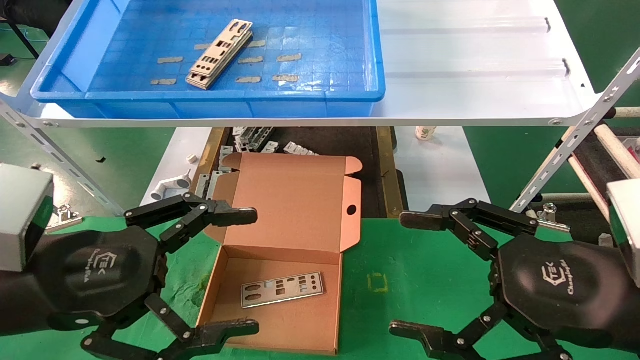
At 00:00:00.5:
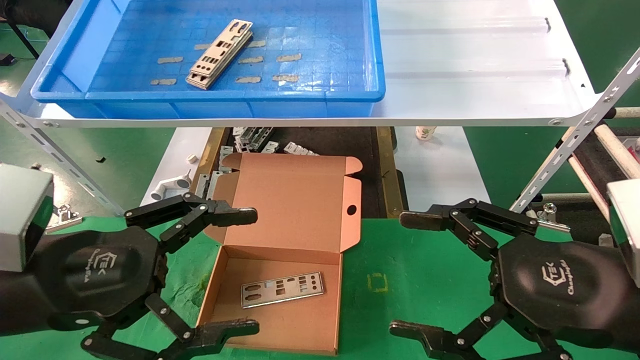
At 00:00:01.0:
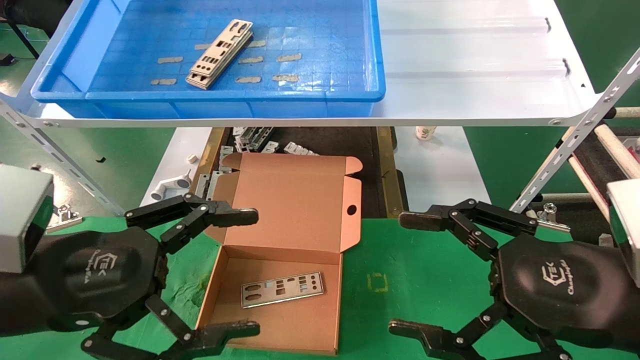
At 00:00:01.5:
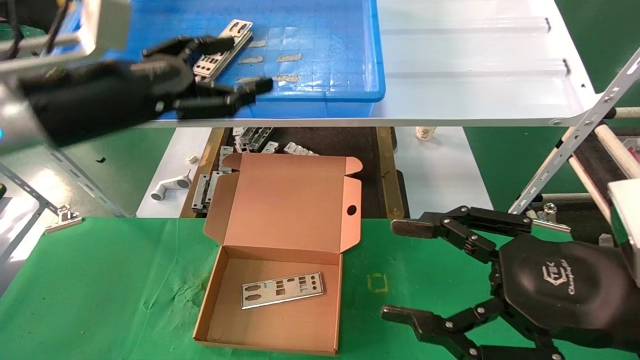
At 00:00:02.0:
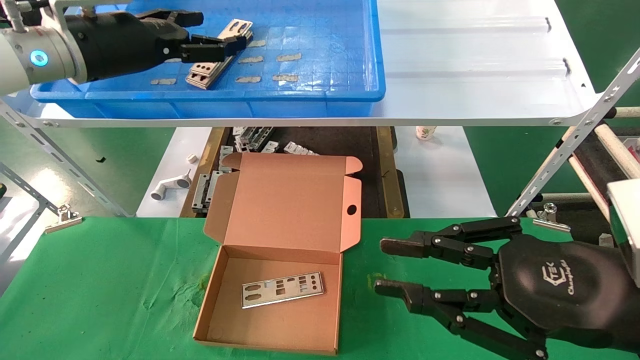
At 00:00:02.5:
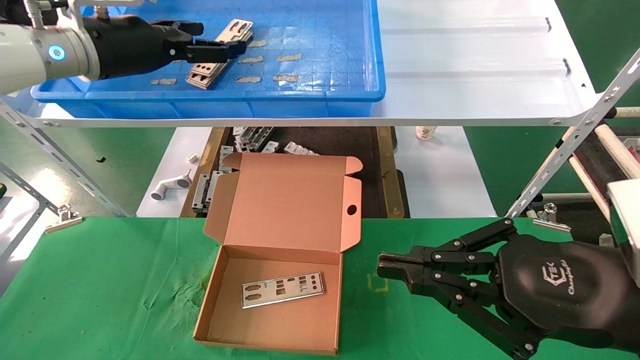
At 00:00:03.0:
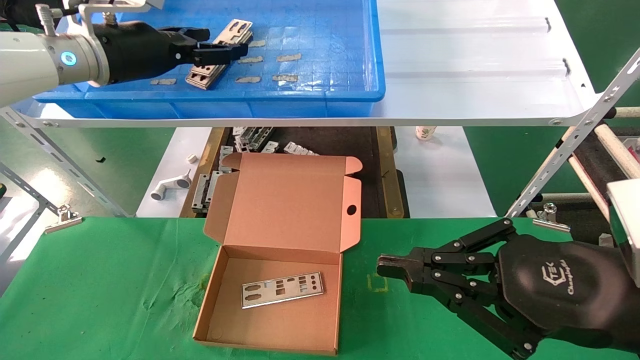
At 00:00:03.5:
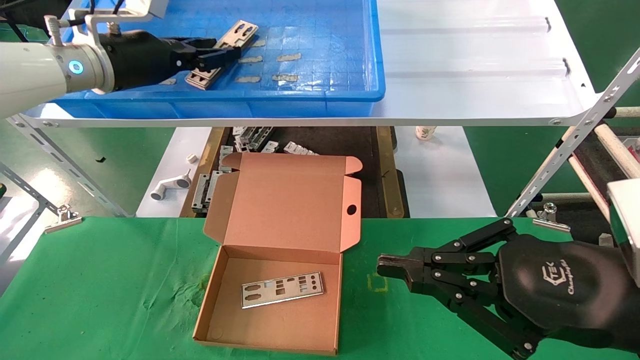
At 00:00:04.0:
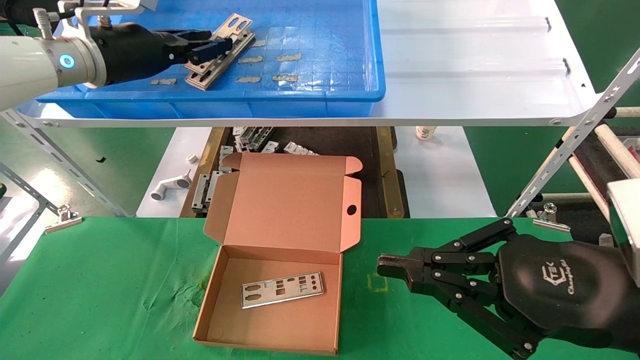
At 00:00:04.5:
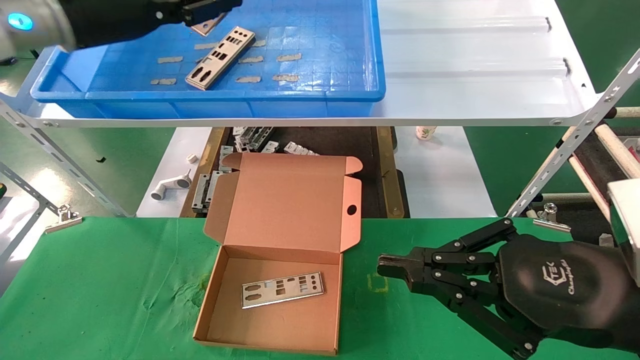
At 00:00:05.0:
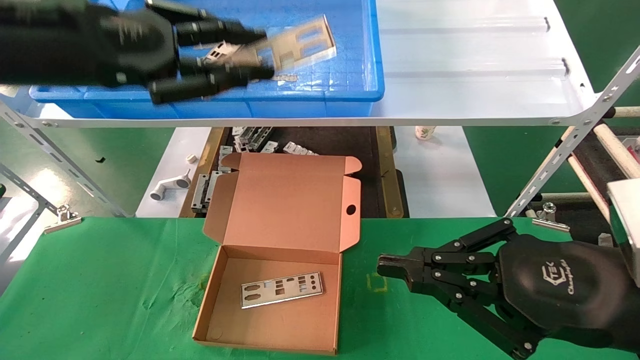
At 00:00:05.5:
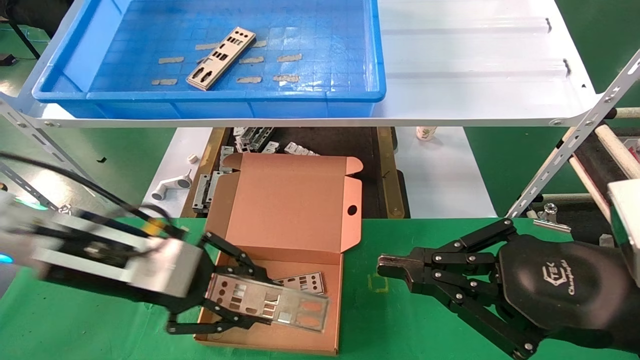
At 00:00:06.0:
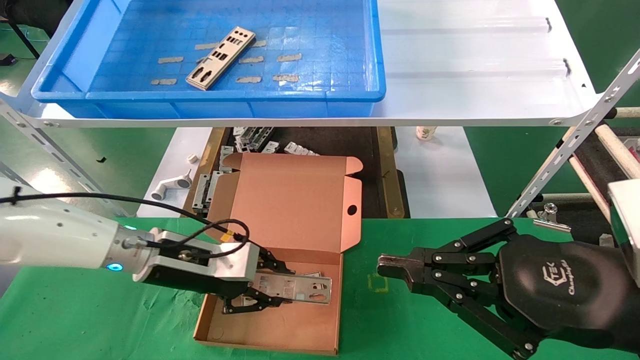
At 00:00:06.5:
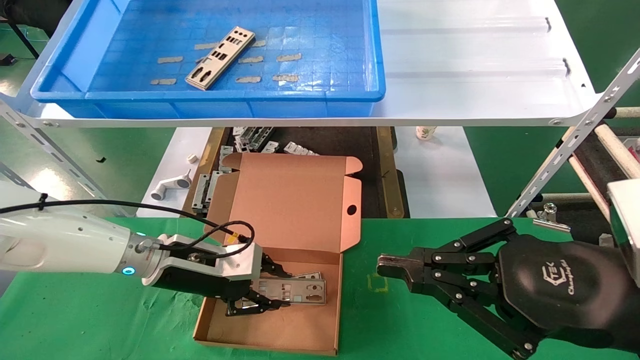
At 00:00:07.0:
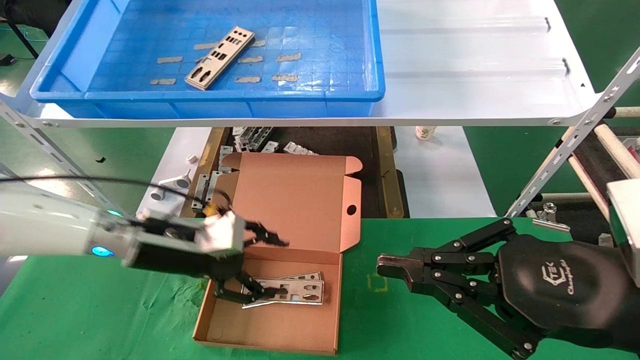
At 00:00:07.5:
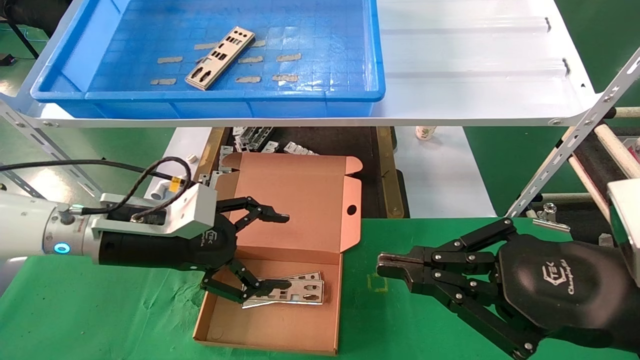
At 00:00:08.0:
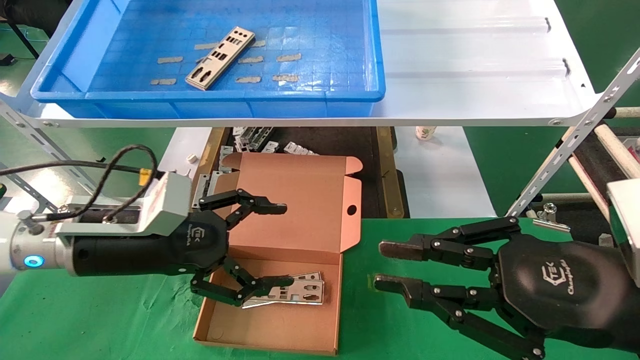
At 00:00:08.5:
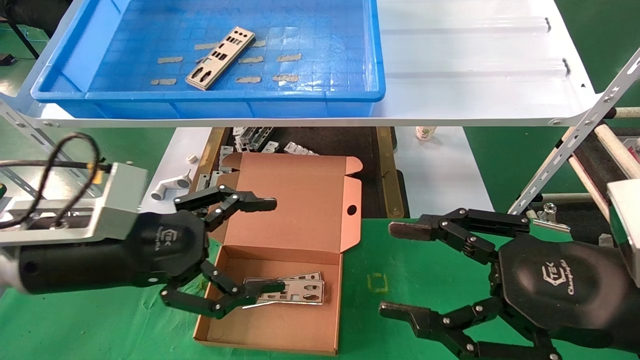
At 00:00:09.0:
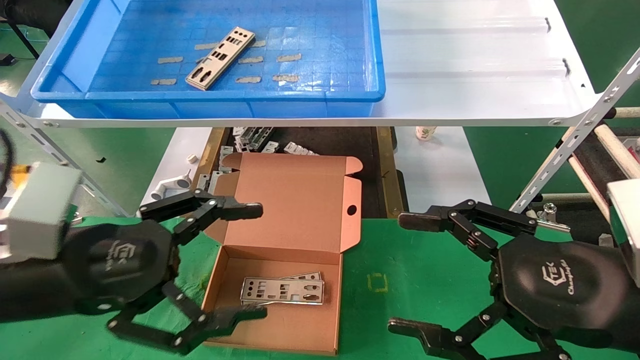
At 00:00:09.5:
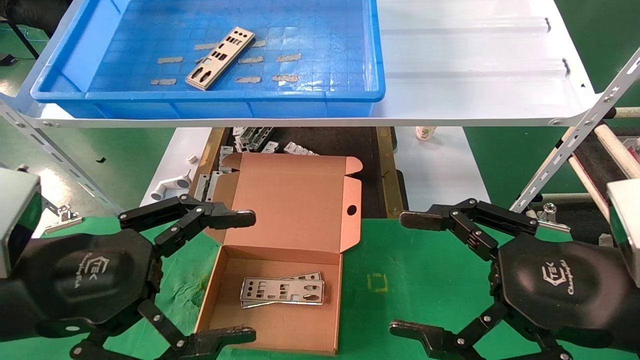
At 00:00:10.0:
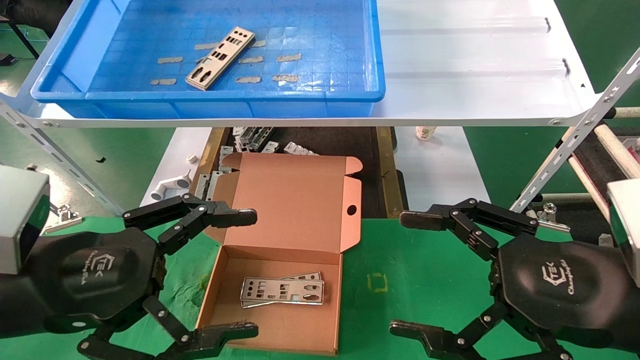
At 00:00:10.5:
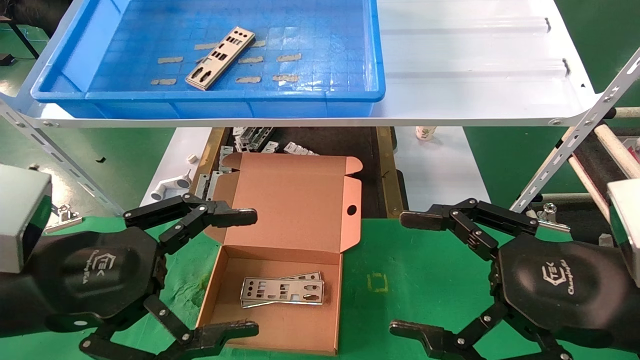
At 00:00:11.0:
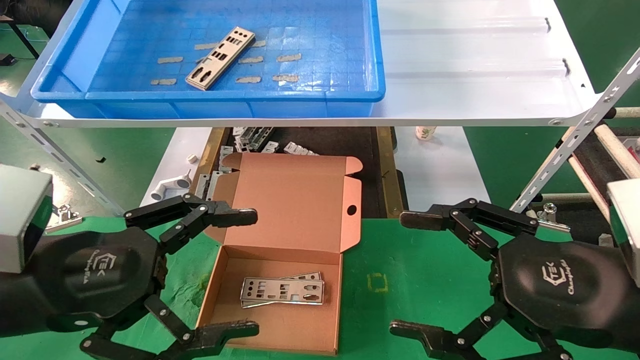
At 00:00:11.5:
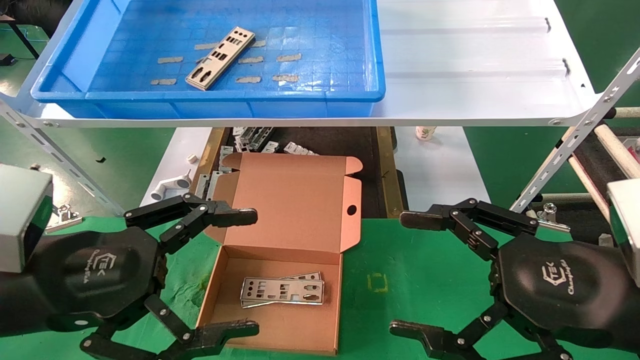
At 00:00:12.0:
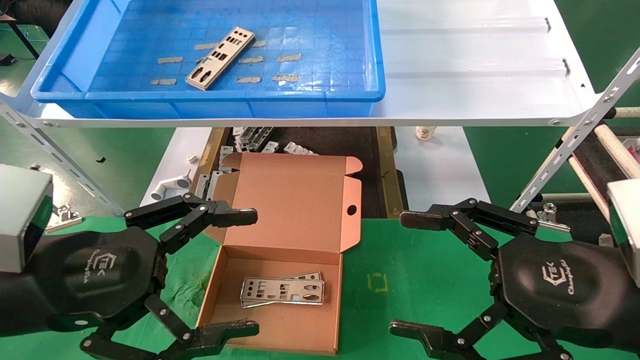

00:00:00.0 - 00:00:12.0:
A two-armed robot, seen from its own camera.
Task of the whole recording: pick up the parts on the tray and put them in the cardboard box.
Step, 00:00:01.5 - 00:00:04.0: Pick up the IO bracket from the container box.
Step, 00:00:04.5 - 00:00:06.5: Place the IO bracket into the ingredient slot.
00:00:00.0 - 00:00:02.0: The left gripper travels forward and upward by about 25 cm; the right gripper closes its fingers.
00:00:02.0 - 00:00:04.0: The right gripper closes, while the left gripper closes.
00:00:04.0 - 00:00:06.0: The left gripper shifts approximately 25 cm downward.
00:00:06.0 - 00:00:08.0: The left gripper shifts approximately 5 cm backward, and opens up.
00:00:08.0 - 00:00:10.0: The left gripper shifts some 10 cm backward, while the right gripper opens its fingers.
00:00:10.0 - 00:00:12.0: Neither gripper changes place.

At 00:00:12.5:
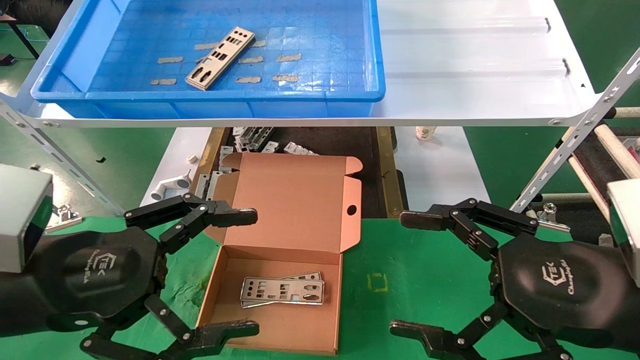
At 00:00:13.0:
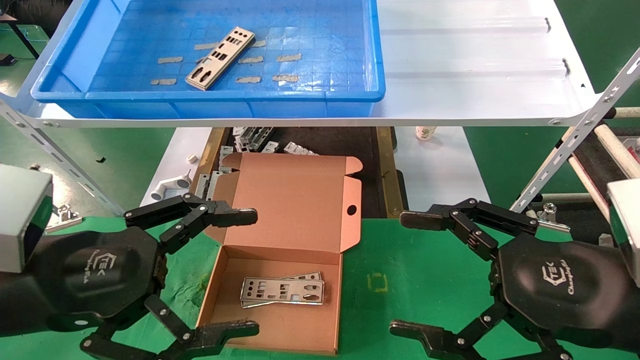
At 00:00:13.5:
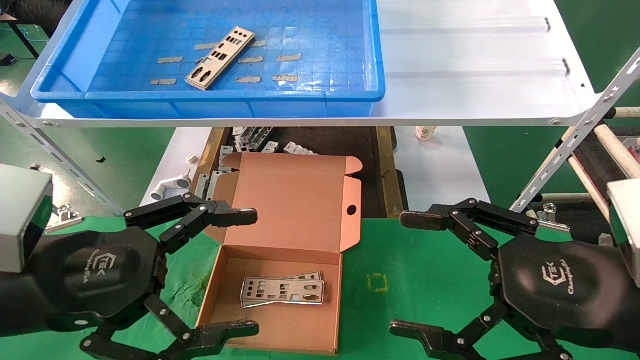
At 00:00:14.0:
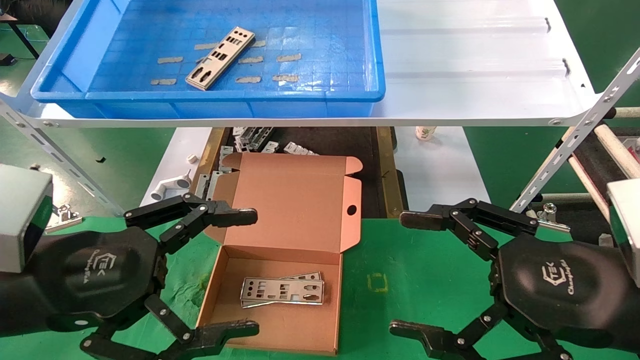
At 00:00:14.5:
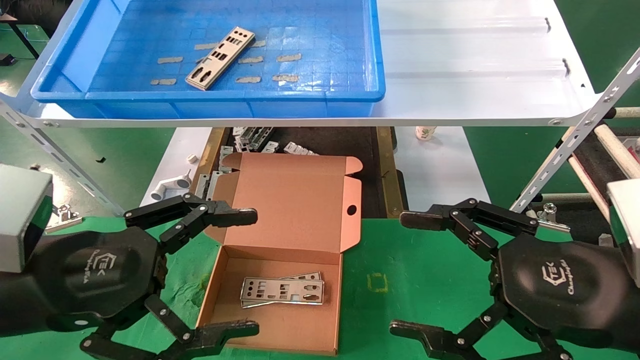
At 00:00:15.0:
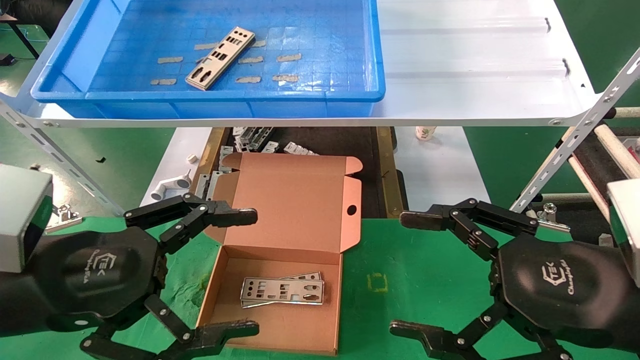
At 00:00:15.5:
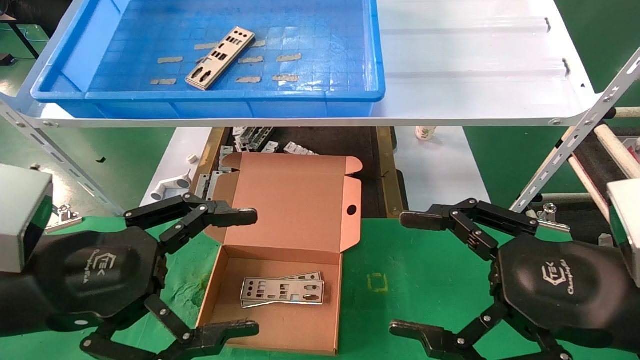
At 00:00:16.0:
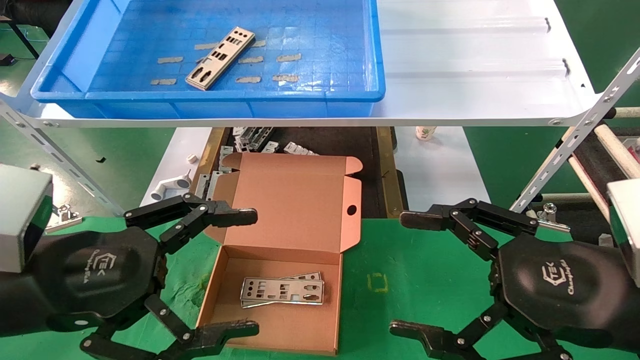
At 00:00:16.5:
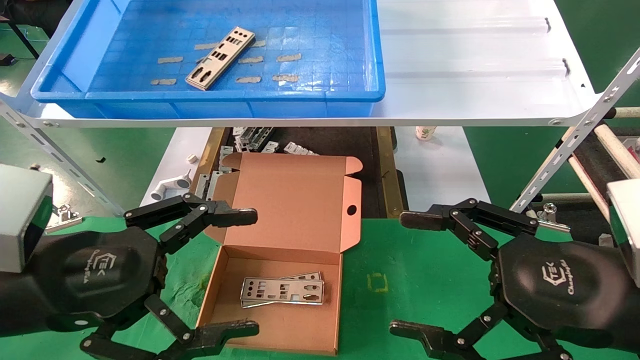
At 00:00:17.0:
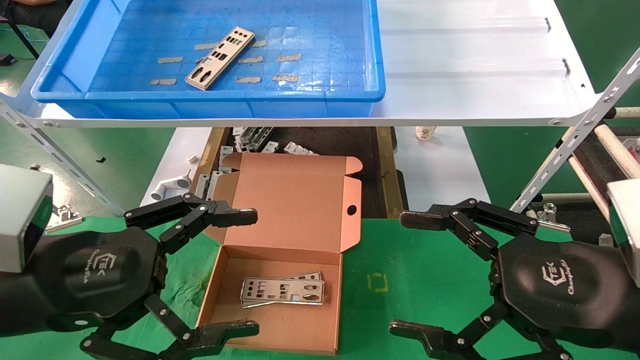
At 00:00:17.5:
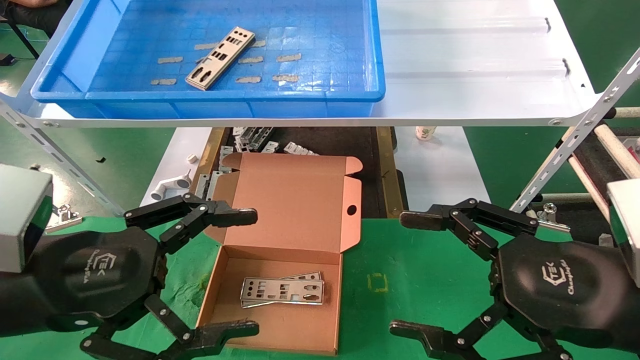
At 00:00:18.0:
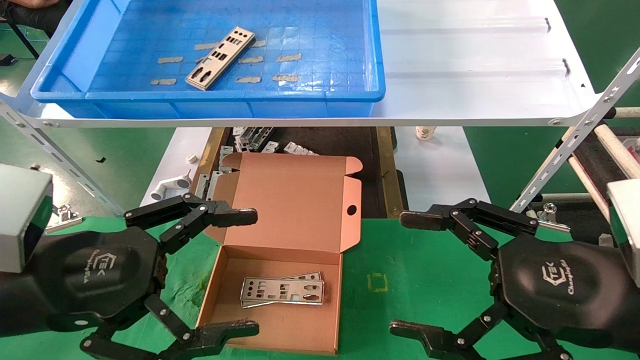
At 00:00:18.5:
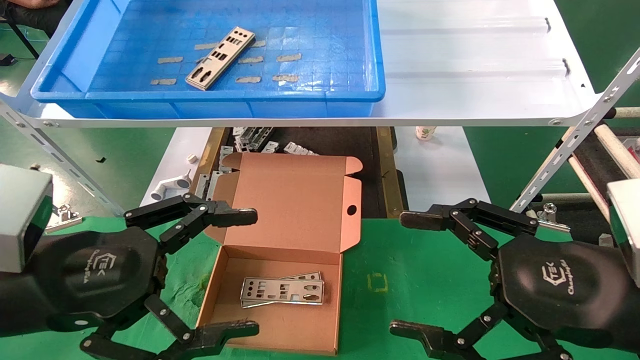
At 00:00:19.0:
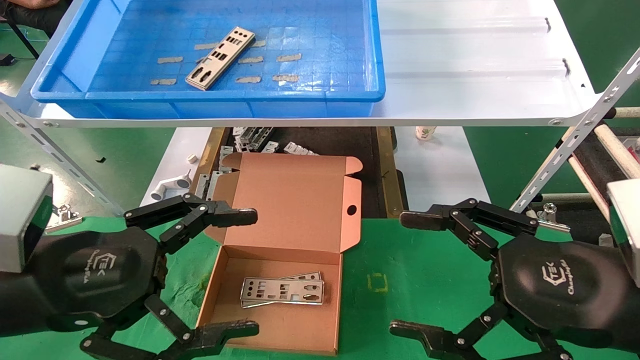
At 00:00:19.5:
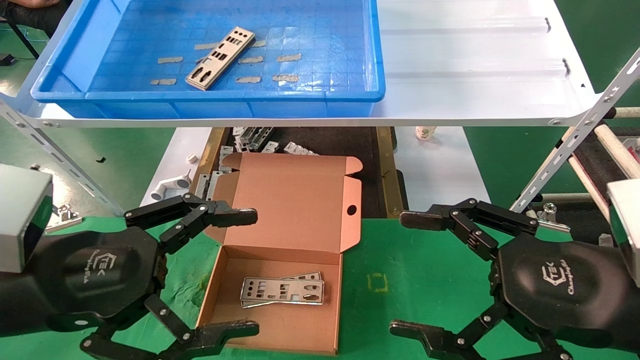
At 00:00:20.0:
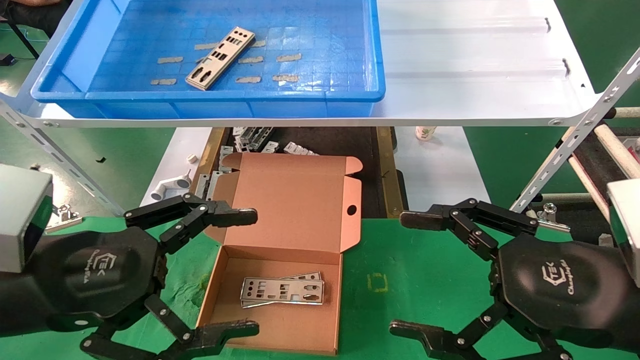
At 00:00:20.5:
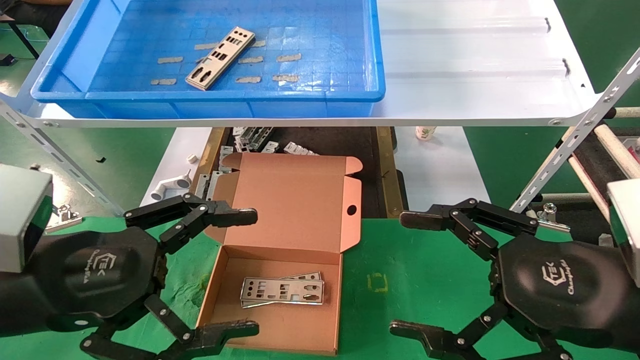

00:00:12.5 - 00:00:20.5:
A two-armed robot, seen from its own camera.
Task of the whole recording: pick up the parts on the tray and put them in the cardboard box.
00:00:12.5 - 00:00:20.5: Both grippers stay about where they are.
